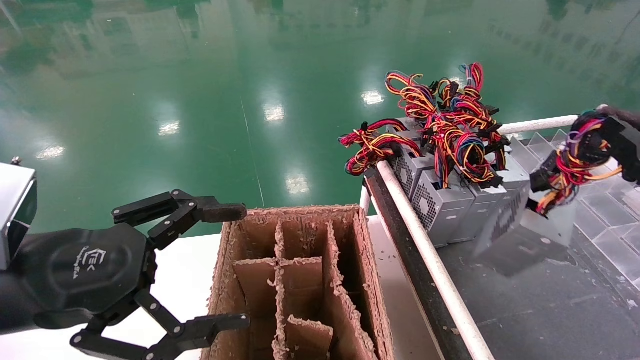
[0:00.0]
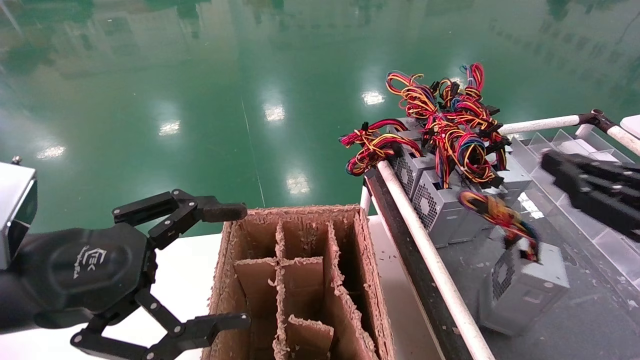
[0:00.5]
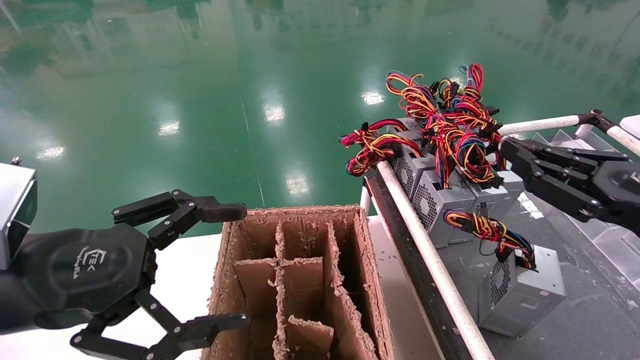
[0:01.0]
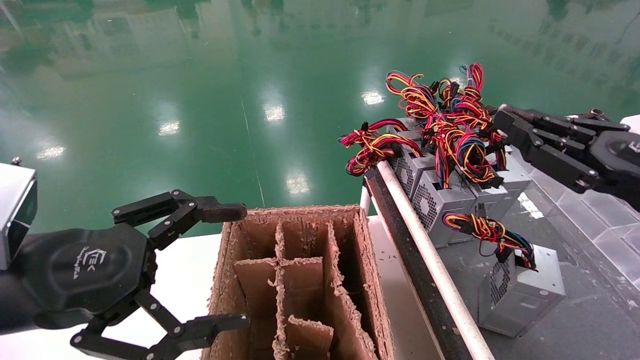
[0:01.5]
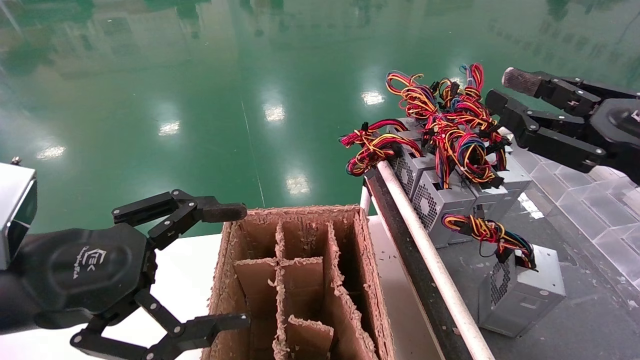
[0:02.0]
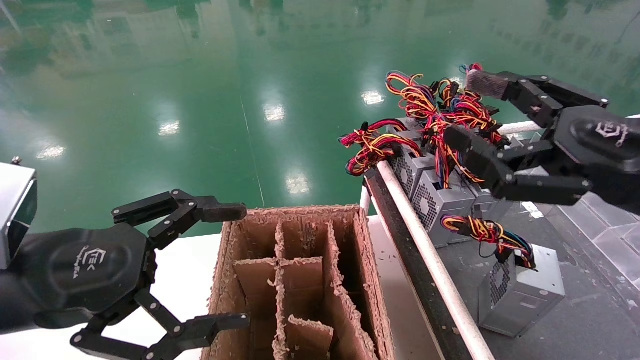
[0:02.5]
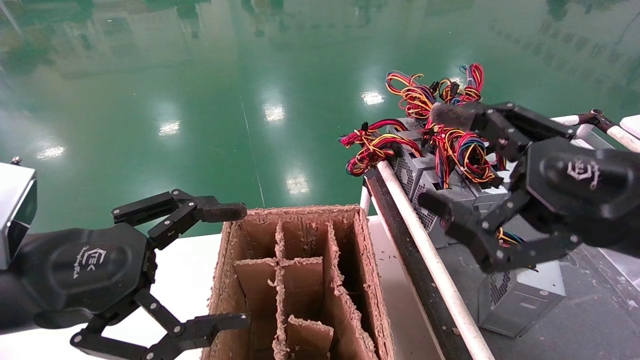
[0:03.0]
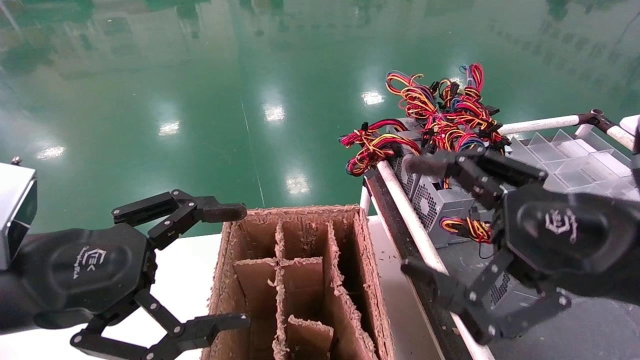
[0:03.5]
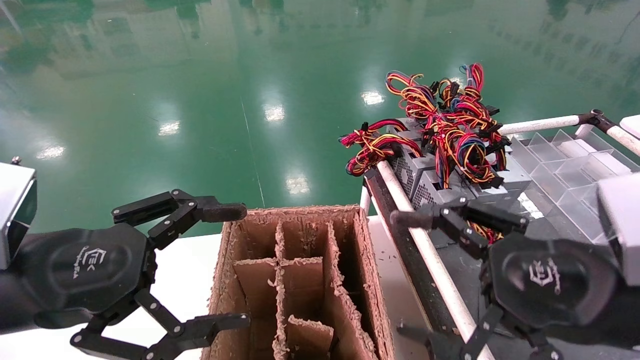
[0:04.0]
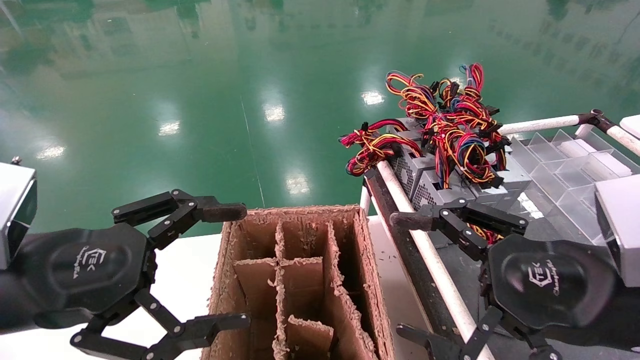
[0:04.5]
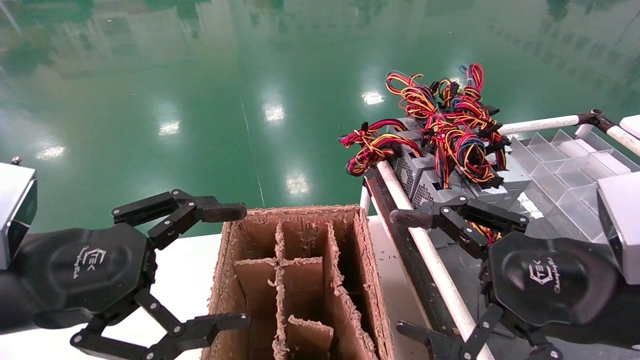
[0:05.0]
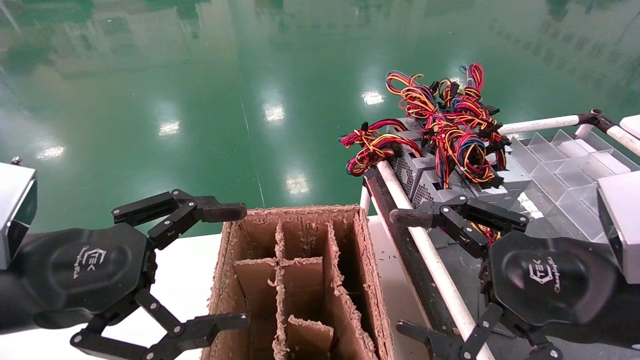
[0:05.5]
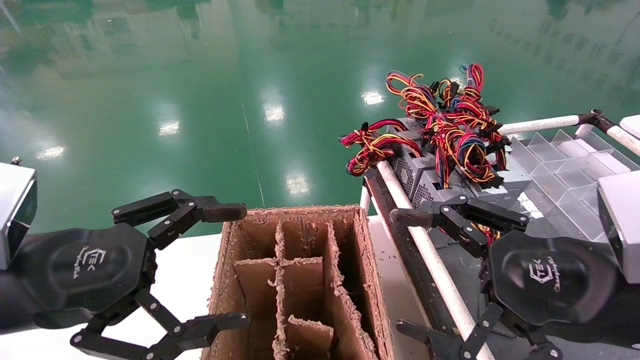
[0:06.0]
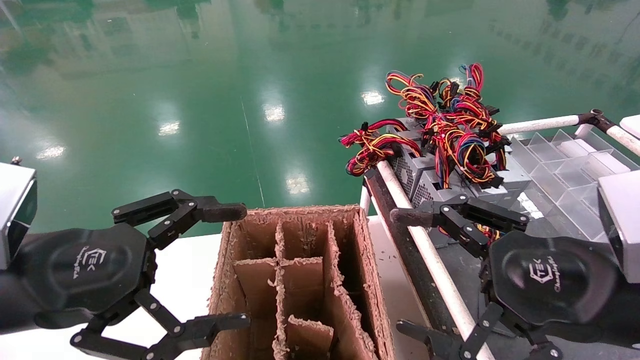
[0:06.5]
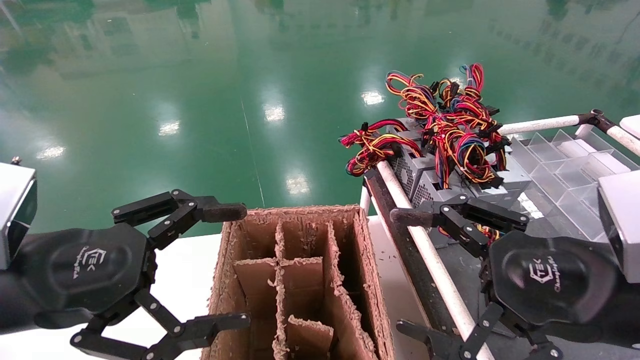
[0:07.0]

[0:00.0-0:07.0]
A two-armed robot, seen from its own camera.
Step, 0:00.0 to 0:02.0: Place the power supply on the operating table.
0:00.0 to 0:02.0: The right gripper travels to the left and forward by roughly 10 cm.
0:02.0 to 0:03.5: The right gripper shifts about 5 cm to the left, and opens.
0:03.5 to 0:05.0: There are only small adjustments of the grippers.
0:05.0 to 0:07.0: Both grippers stay about where they are.
